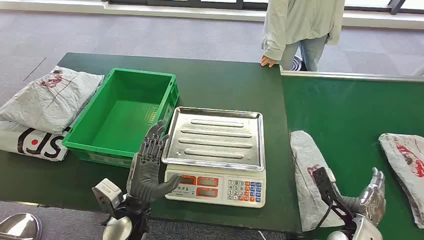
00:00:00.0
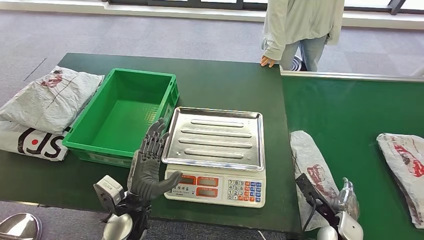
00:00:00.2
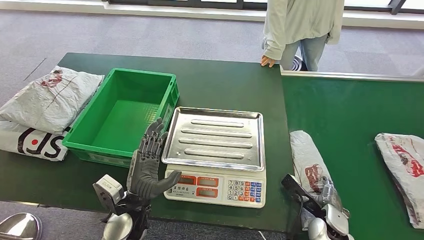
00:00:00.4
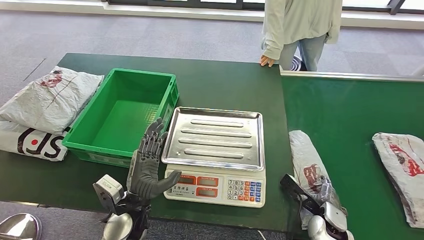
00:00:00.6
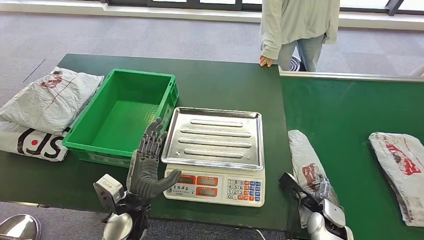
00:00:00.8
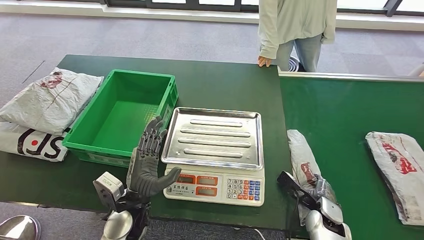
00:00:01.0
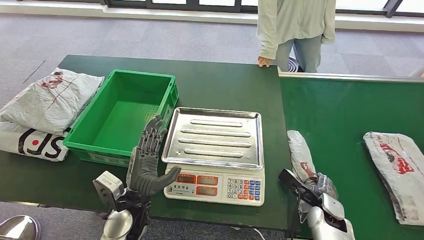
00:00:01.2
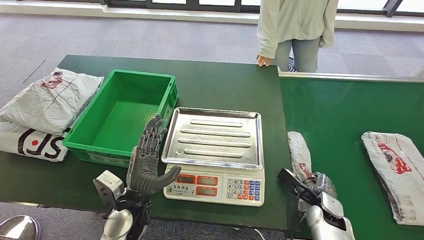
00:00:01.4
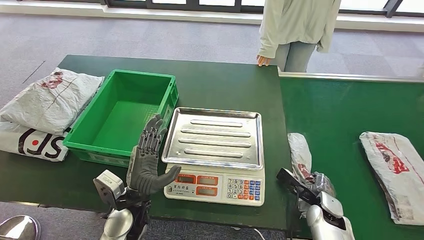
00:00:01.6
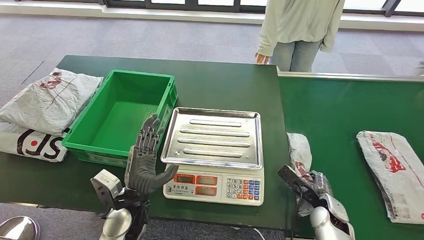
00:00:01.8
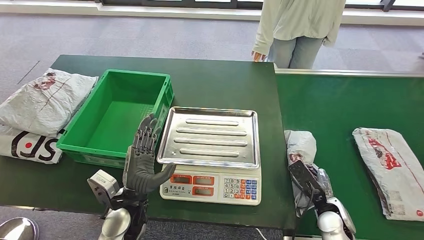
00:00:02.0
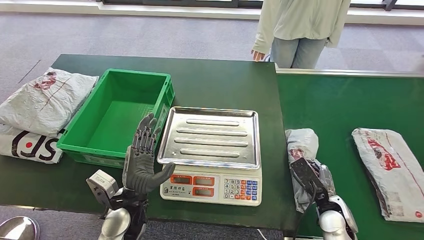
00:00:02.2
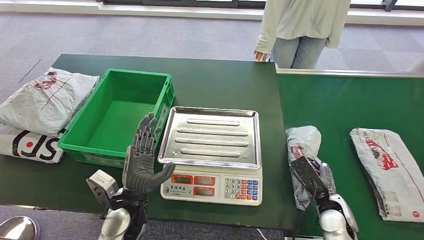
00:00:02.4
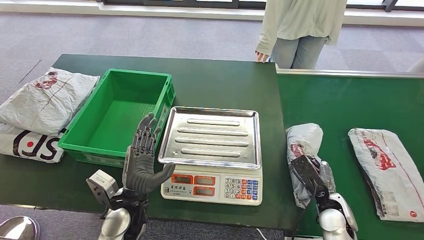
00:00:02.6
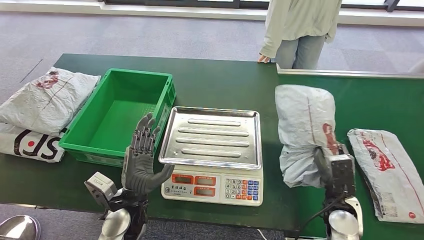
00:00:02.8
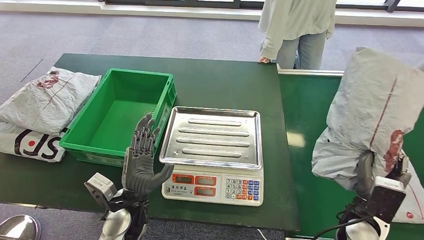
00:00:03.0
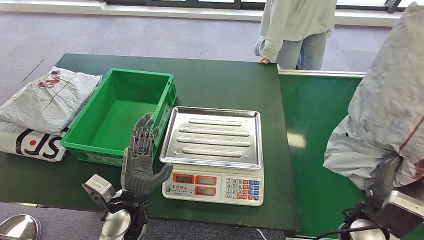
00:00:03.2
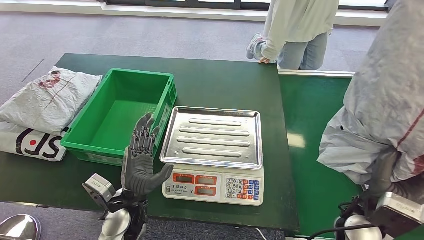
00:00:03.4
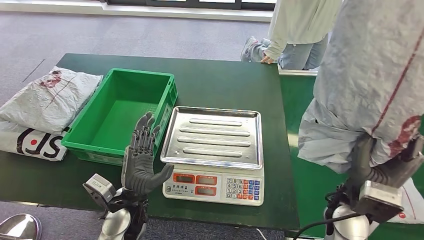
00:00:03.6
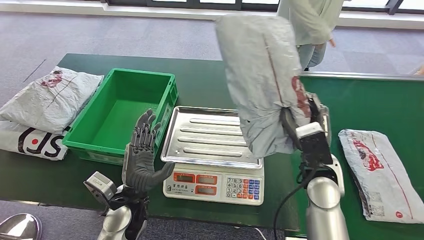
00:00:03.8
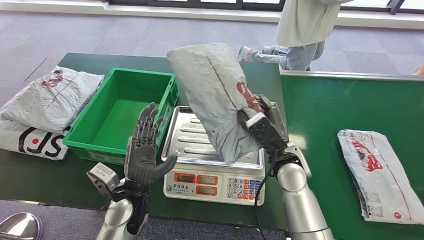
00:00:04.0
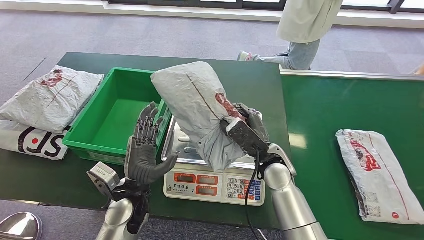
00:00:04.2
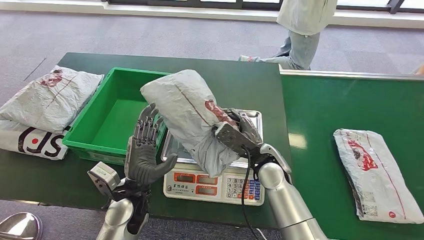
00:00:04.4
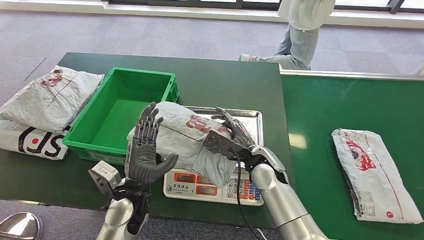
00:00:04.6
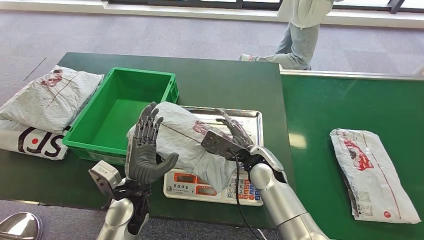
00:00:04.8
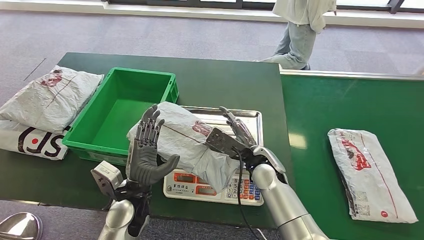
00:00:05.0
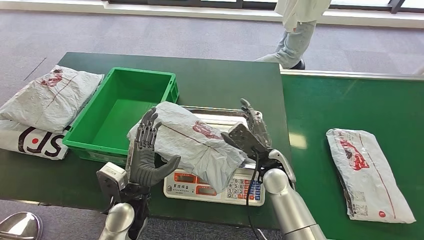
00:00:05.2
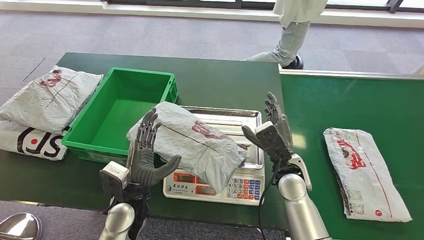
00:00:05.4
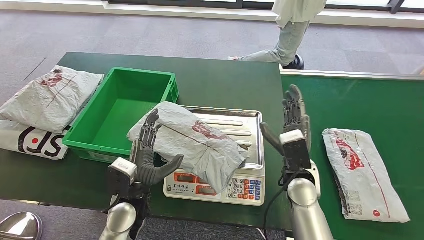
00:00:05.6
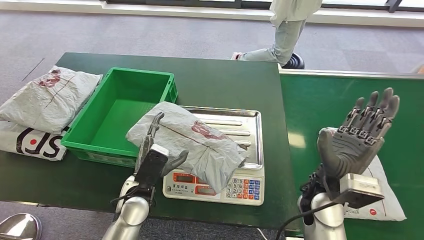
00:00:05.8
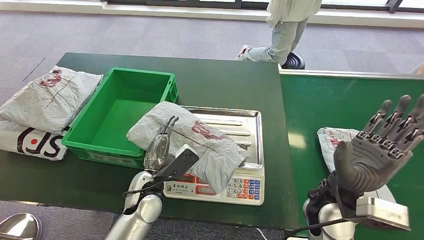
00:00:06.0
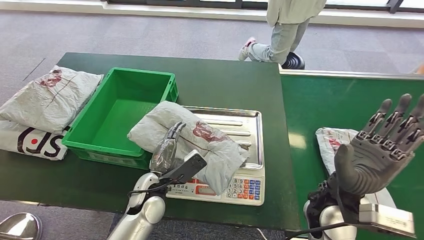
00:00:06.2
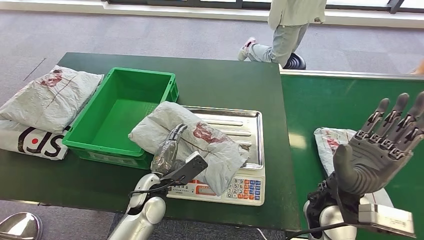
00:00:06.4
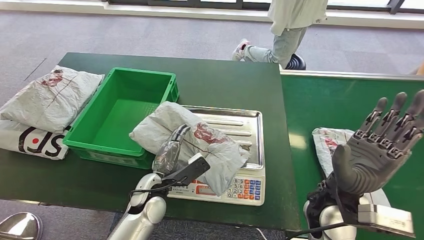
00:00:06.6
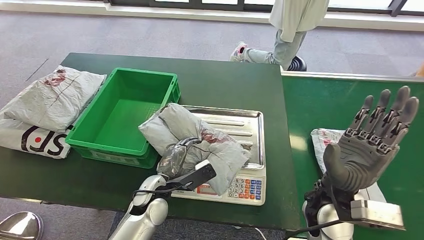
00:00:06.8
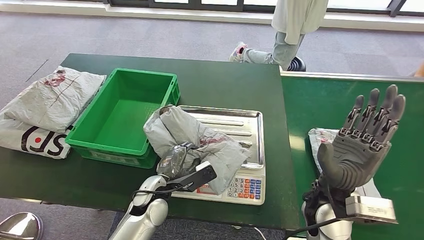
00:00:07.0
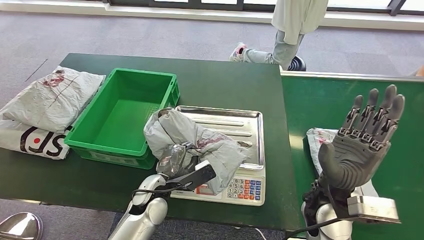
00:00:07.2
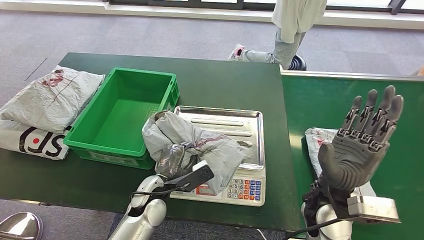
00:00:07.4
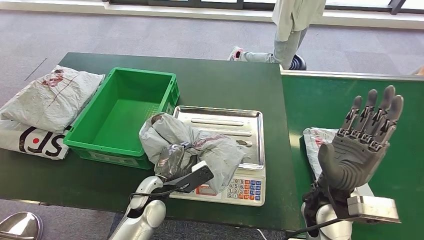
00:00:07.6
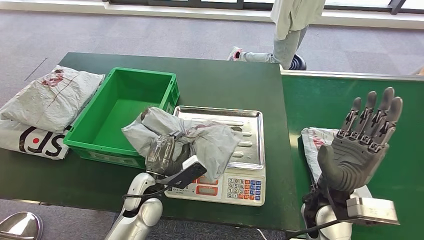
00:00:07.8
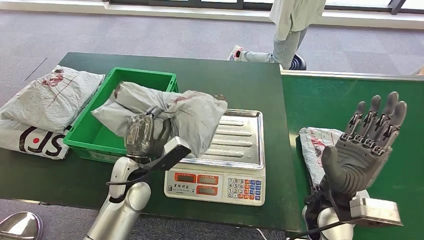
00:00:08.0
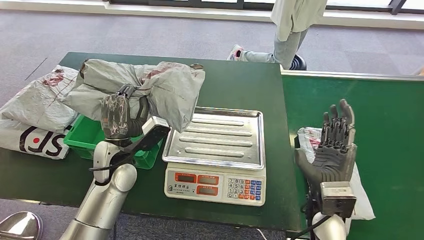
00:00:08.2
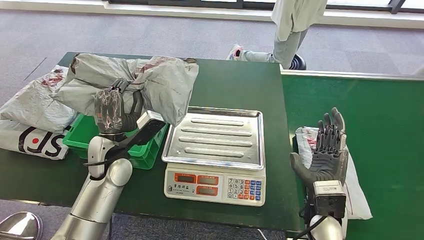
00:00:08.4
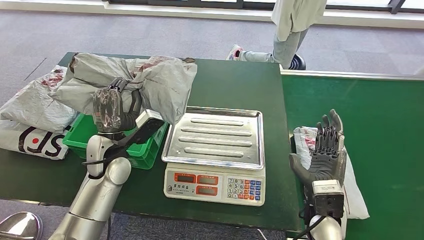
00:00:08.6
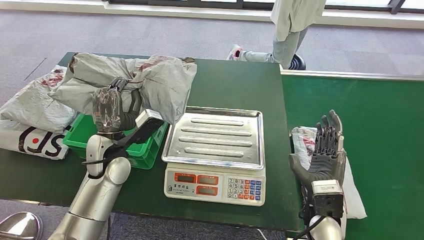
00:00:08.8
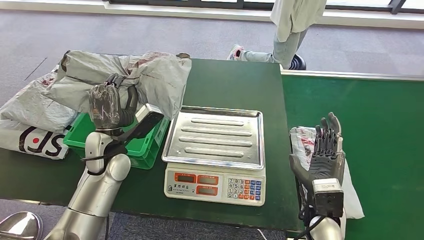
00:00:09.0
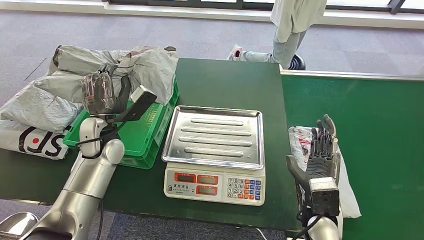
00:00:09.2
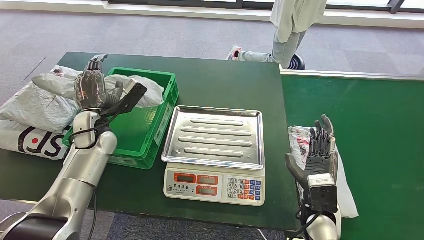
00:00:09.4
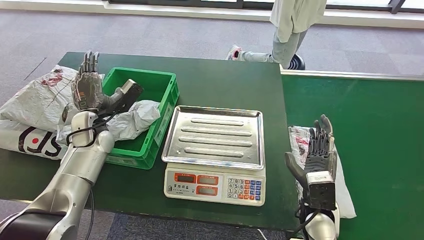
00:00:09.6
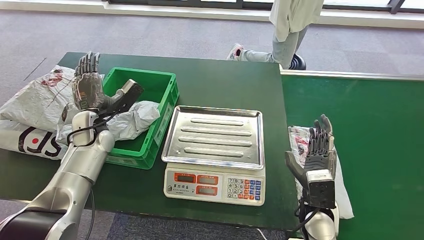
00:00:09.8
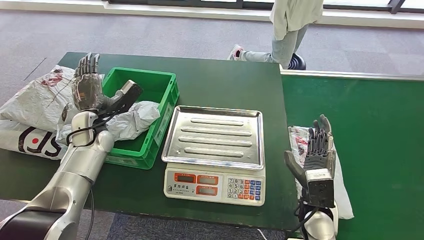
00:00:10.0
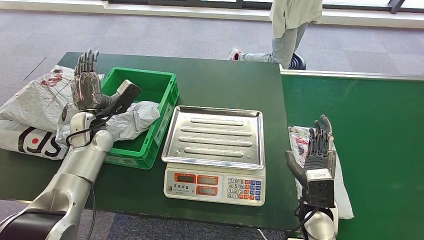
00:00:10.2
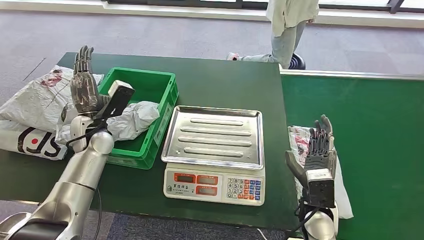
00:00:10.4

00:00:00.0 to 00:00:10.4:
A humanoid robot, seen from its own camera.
Step, 00:00:00.0 to 00:00:03.2: Take the parcel off the conveyor belt.
Step, 00:00:03.4 to 00:00:05.6: Place the parcel onto the inbound machine.
Step, 00:00:06.0 to 00:00:08.2: Pick up the parcel from the inbound machine.
Step, 00:00:08.6 to 00:00:10.2: Put the parcel inside the courier box.
